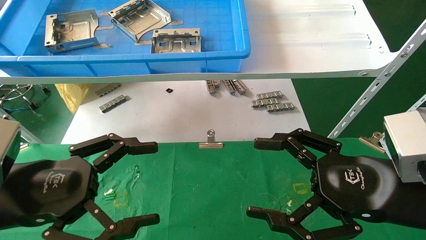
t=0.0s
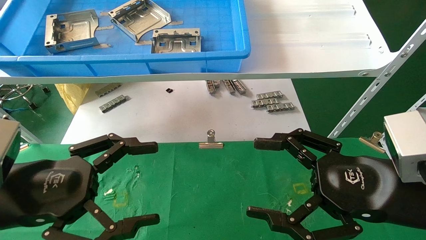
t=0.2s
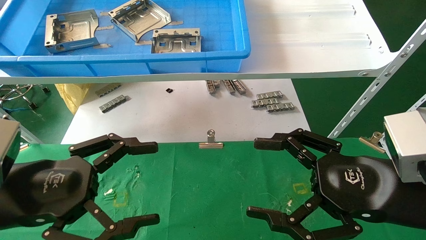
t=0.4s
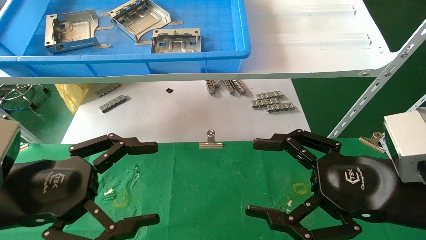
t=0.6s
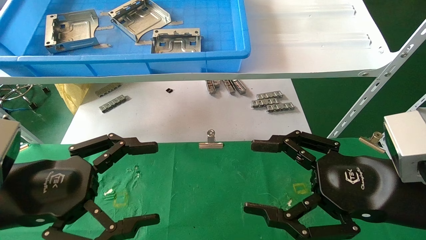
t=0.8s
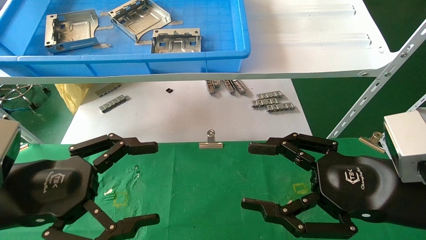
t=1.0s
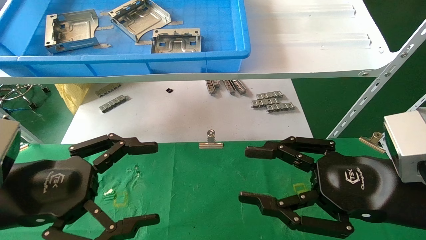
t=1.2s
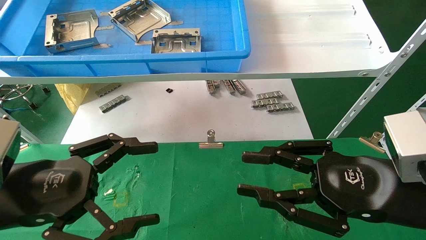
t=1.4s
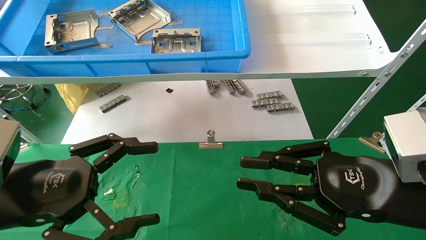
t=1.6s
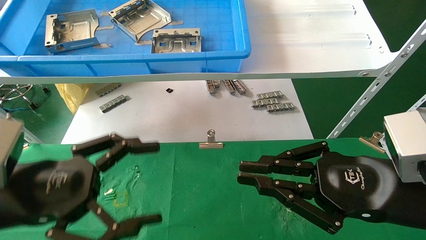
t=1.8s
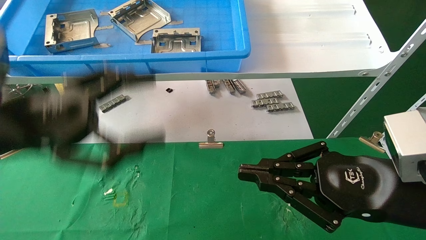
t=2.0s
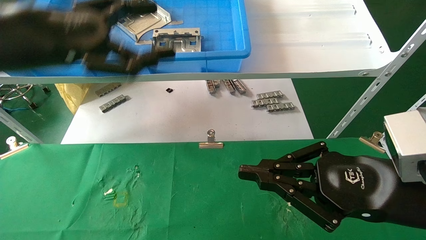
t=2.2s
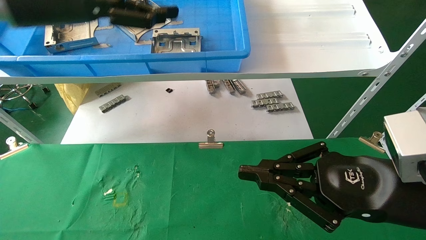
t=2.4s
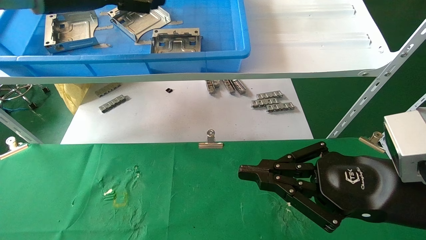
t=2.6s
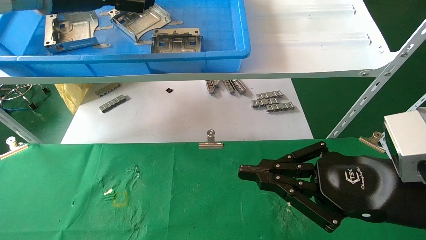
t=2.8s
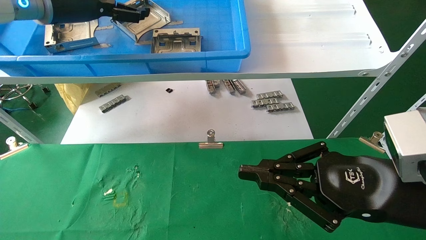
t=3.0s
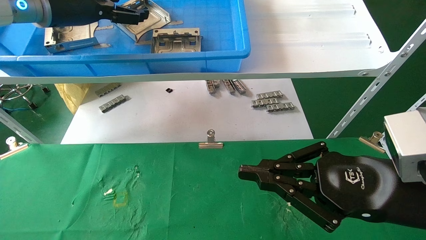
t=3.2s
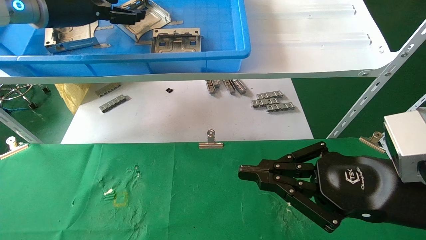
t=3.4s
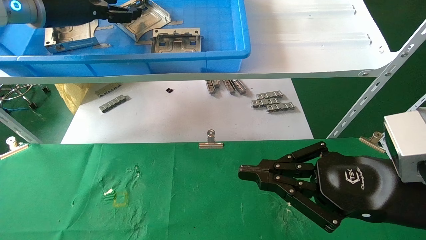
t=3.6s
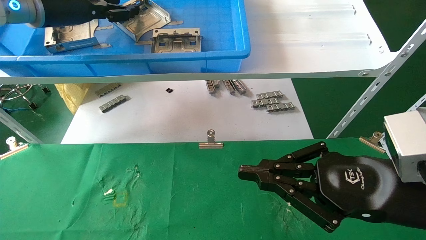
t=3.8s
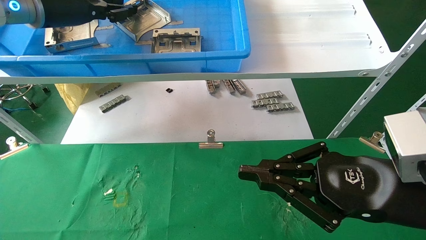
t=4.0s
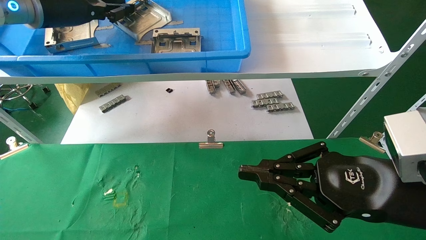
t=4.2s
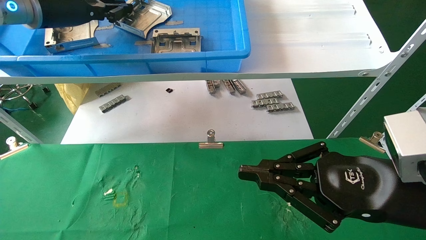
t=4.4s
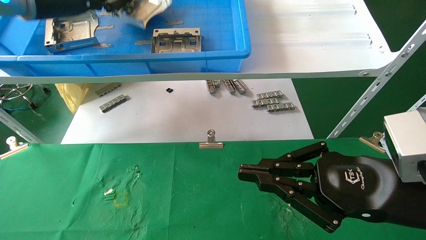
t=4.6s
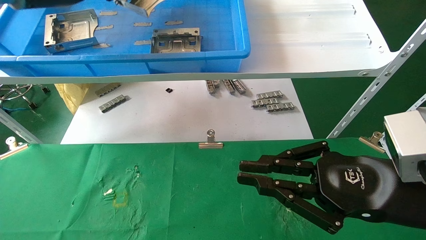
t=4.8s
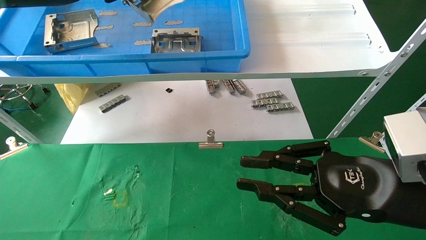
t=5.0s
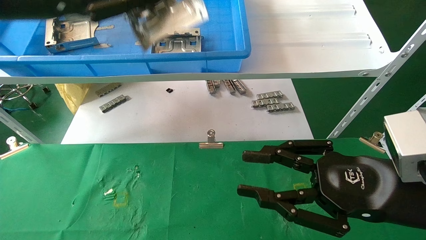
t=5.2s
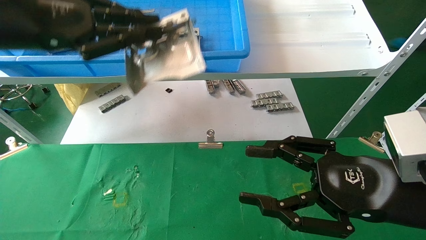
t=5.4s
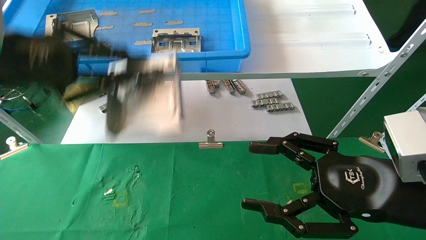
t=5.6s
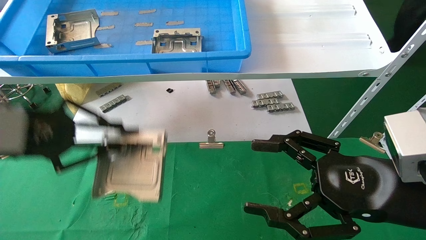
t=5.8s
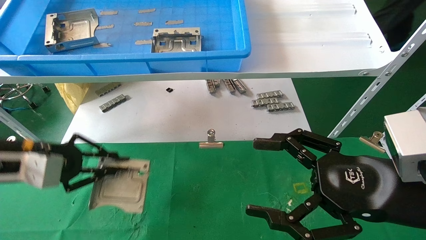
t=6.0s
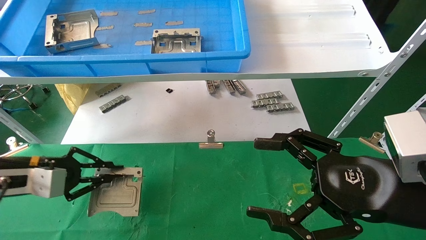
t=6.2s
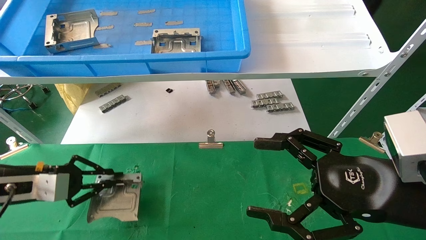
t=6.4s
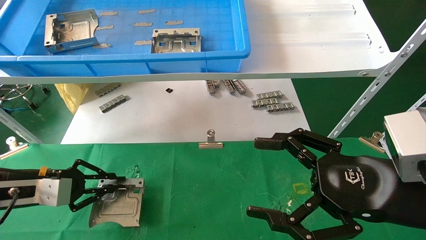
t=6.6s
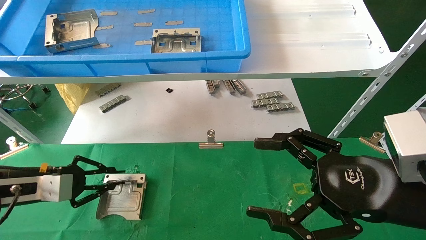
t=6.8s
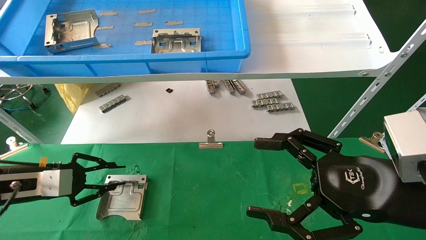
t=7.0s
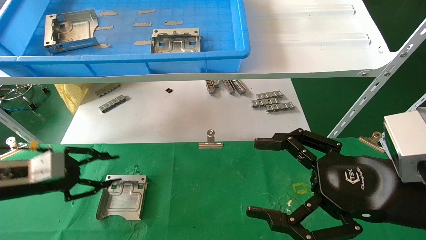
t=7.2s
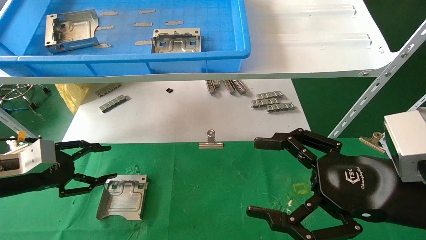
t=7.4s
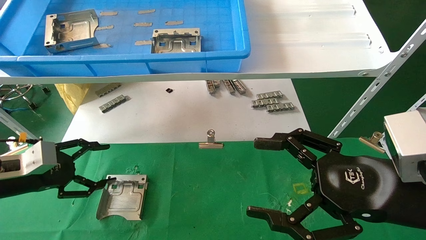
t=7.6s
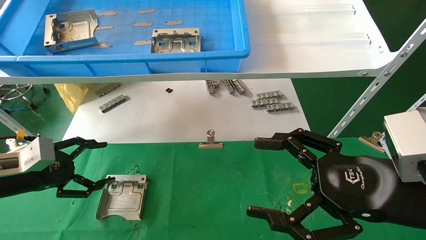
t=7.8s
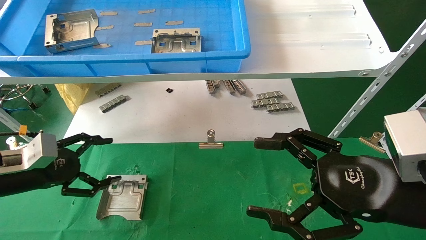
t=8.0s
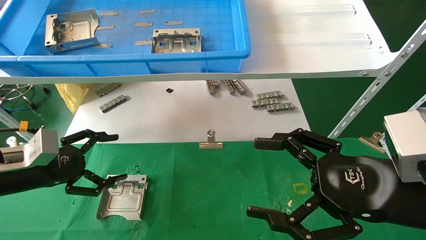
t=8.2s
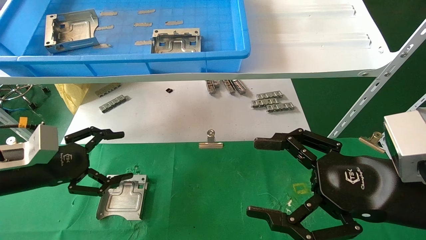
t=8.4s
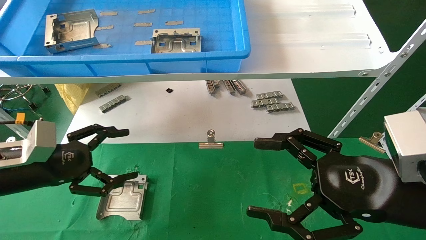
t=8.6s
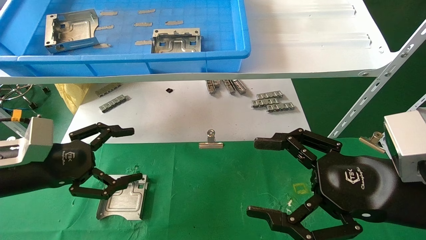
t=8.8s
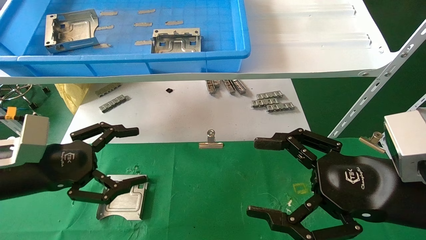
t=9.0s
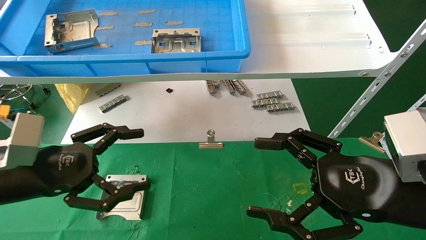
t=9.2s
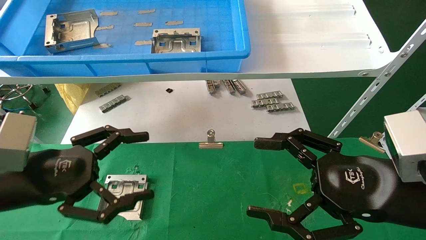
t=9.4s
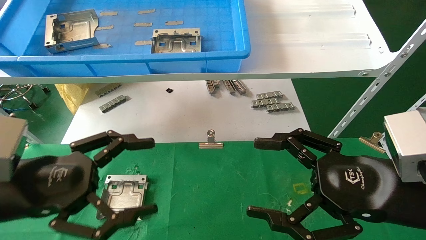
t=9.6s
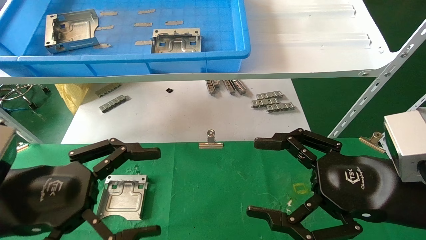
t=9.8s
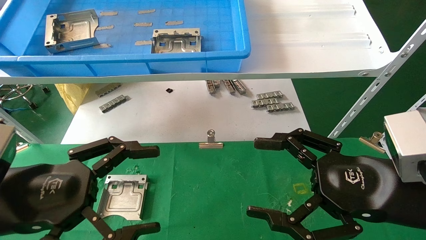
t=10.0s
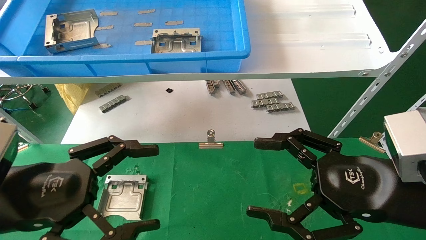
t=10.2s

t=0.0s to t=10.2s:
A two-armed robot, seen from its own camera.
Task of the whole recording: use the mechanical arm to pick up the parts and place them on the table.
Step, t=1.8s to t=4.8s: Pick up the hard drive bracket from the feeding area.
Step, t=5.0s to t=8.0s: Place the hard drive bracket into the box.
t=0.0s to t=1.4s: The right gripper closes.
t=1.4s to t=3.0s: The right gripper closes. Meanwhile the left gripper travels upward and forward by some 30 cm.
t=3.0s to t=4.4s: The left gripper closes up.
t=4.4s to t=5.8s: The right gripper opens up. Meanwhile the left gripper is displaced downward and backward by roughly 20 cm.
t=5.8s to t=7.2s: The left gripper travels downward by roughly 15 cm.
t=7.2s to t=8.8s: The left gripper is displaced to the right by about 5 cm, and opens its fingers.
t=8.8s to t=10.2s: The left gripper shifts approximately 10 cm backward and to the right.
